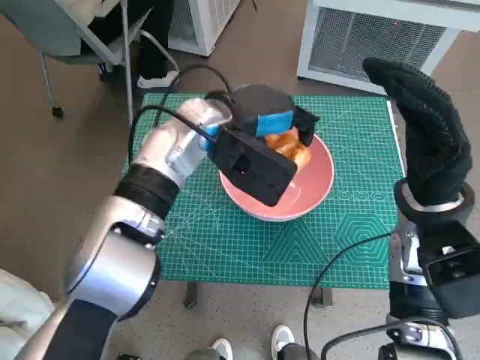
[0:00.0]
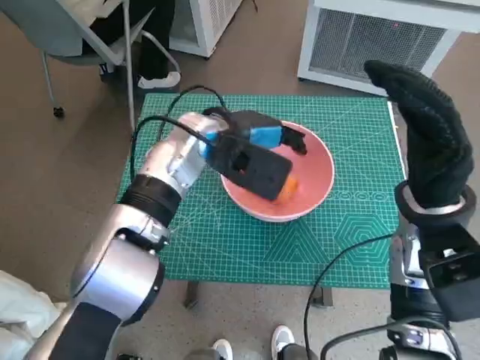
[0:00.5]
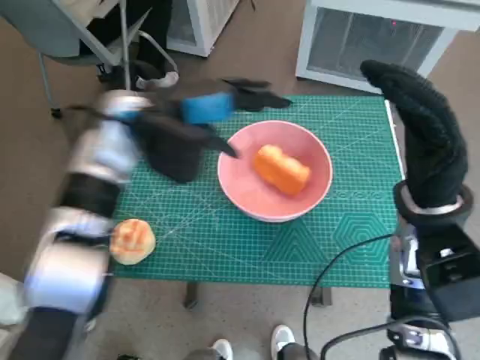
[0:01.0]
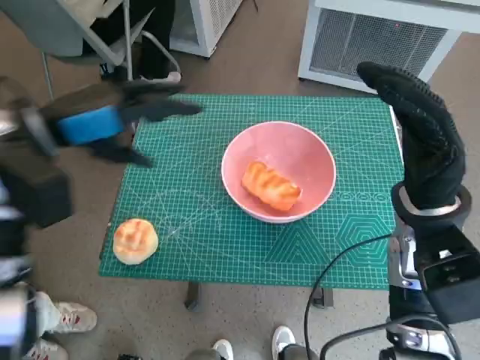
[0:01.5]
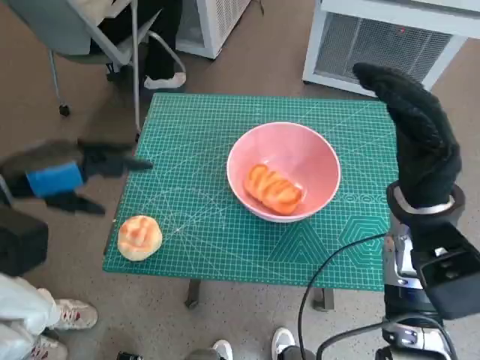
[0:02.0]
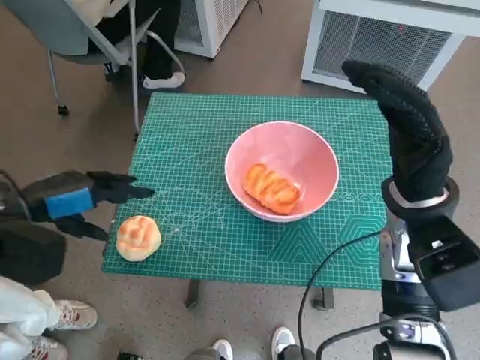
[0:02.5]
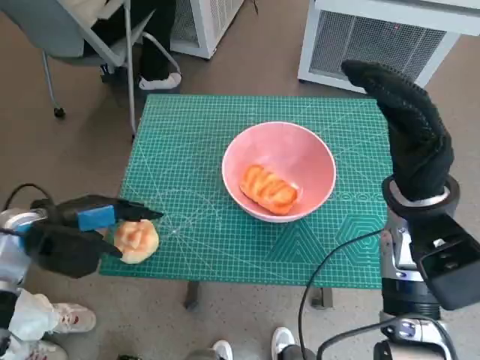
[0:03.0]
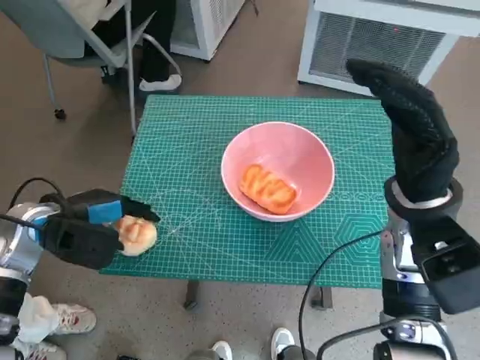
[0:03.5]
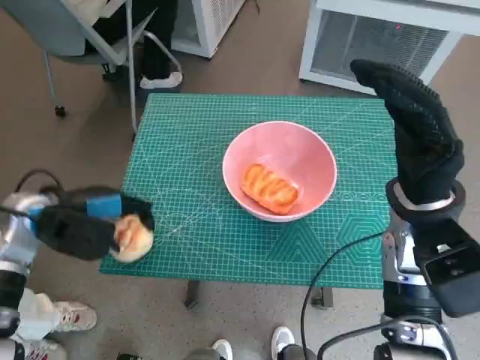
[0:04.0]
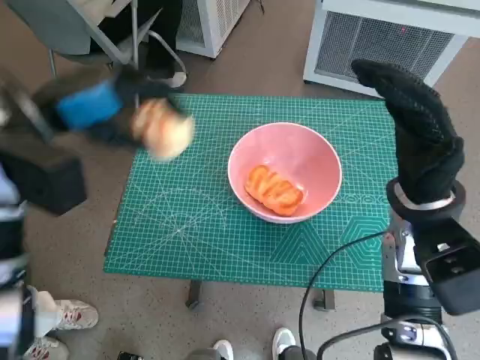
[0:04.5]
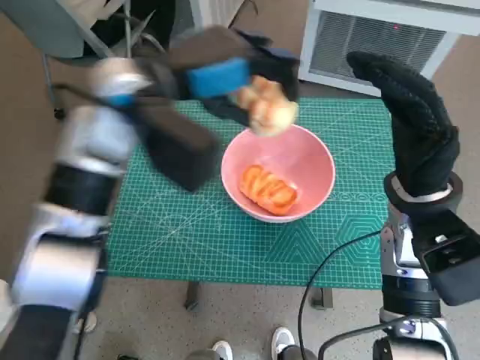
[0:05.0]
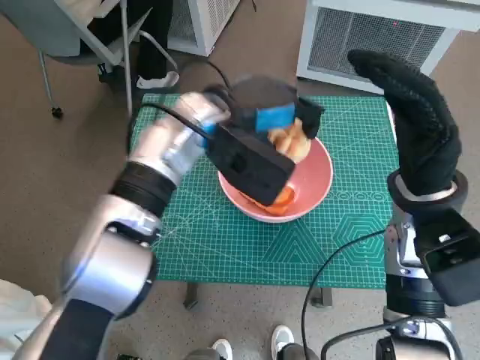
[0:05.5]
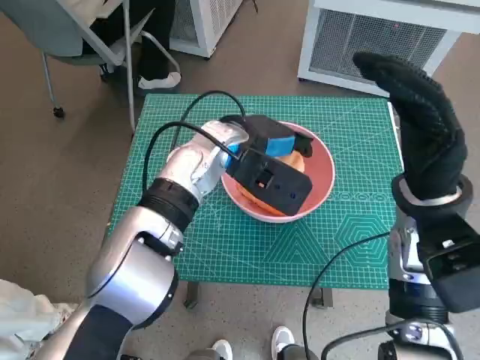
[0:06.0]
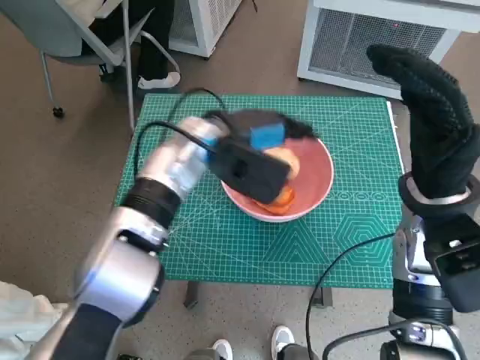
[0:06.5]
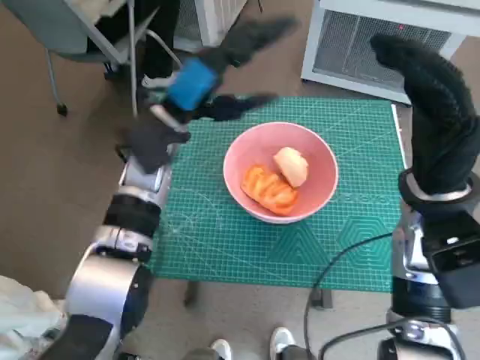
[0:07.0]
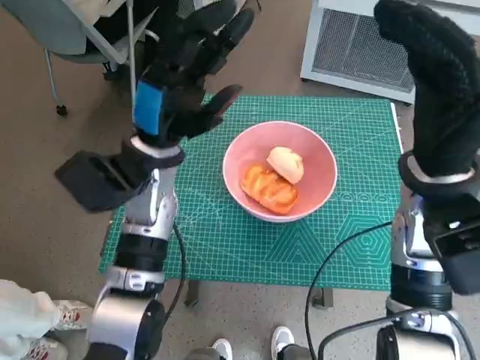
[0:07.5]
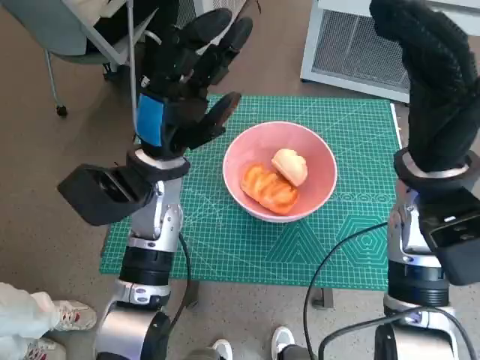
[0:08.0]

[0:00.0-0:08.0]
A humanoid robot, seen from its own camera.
Task of the whole recording: Push the bowl to the center of the table and put the bread into the bowl.
Step, 0:01.0 to 0:03.0: Grasp the round bread with left hand.
Step, 0:03.5 to 0:06.5: Place the round bread in pink bowl with left hand.
0:00.0 to 0:02.0: The left hand travels to the left and backward by some 25 cm.
0:02.0 to 0:04.0: The left hand is displaced downward by about 10 cm.
0:04.0 to 0:06.0: The left hand travels to the right by about 25 cm.
0:06.0 to 0:08.0: The left hand is displaced to the left by about 10 cm.

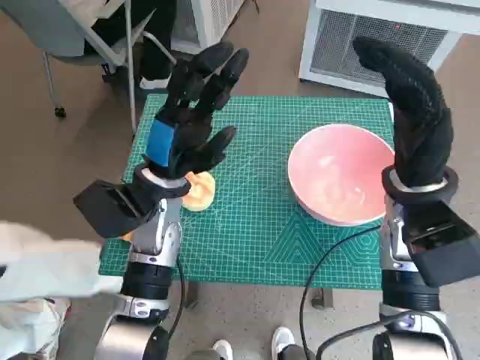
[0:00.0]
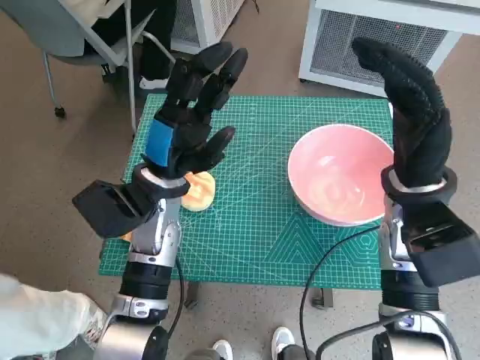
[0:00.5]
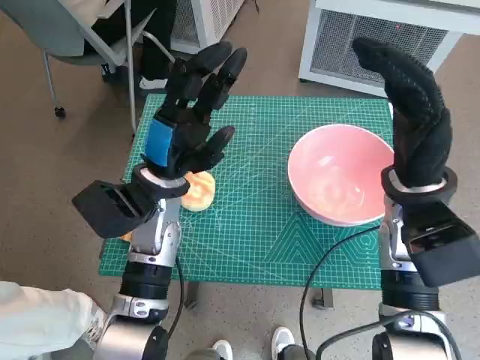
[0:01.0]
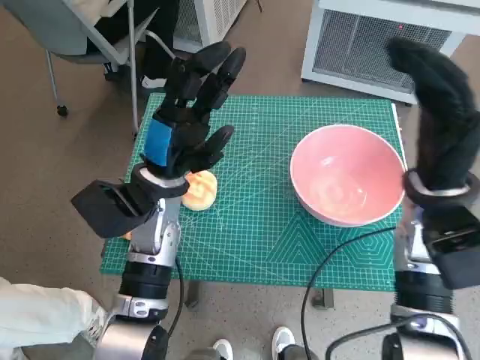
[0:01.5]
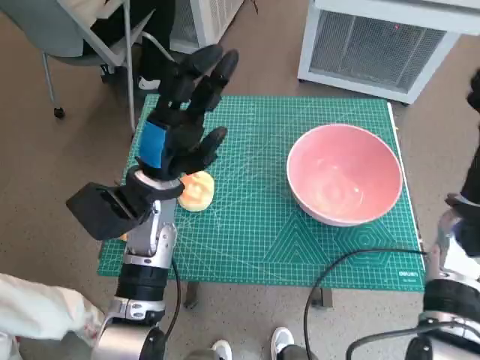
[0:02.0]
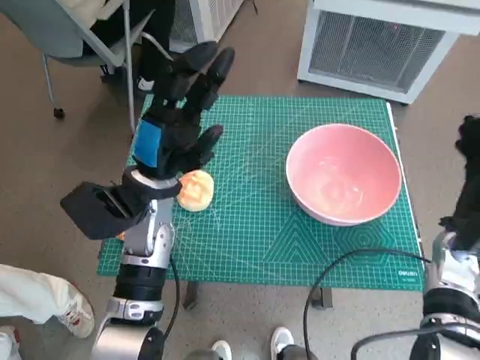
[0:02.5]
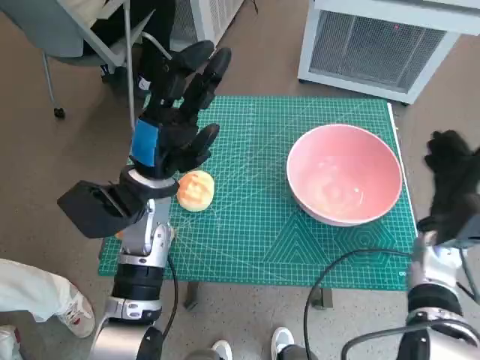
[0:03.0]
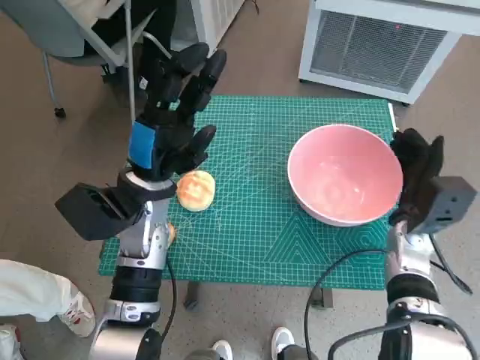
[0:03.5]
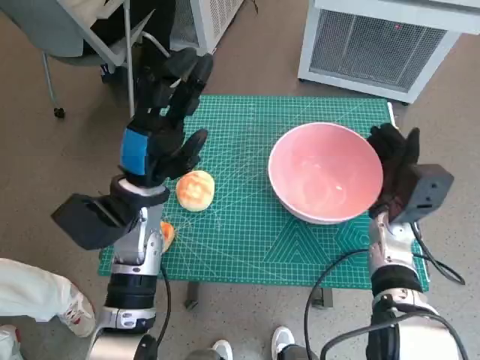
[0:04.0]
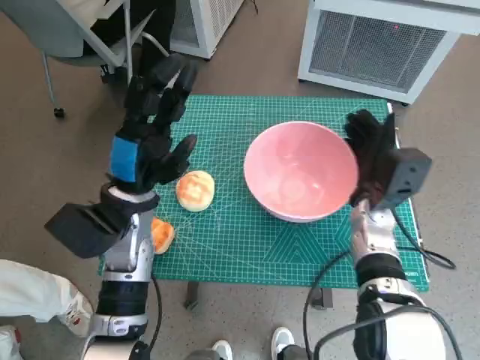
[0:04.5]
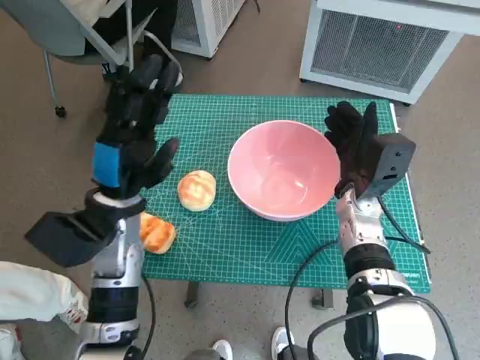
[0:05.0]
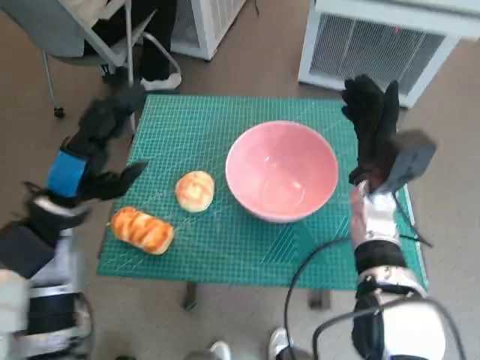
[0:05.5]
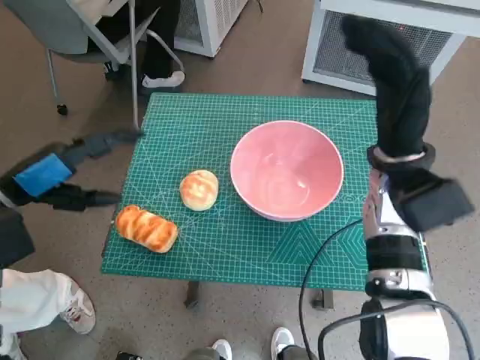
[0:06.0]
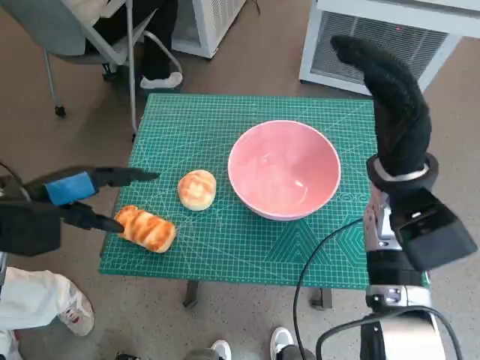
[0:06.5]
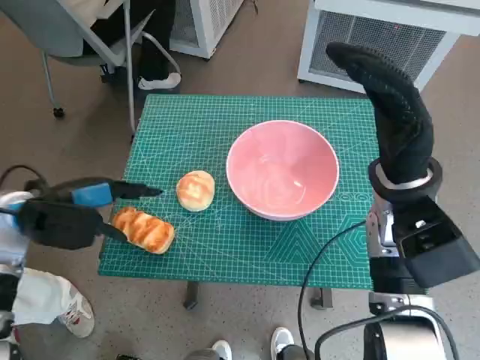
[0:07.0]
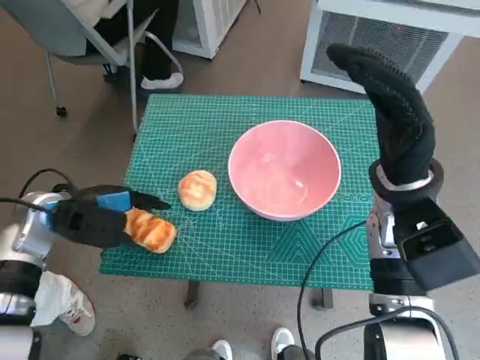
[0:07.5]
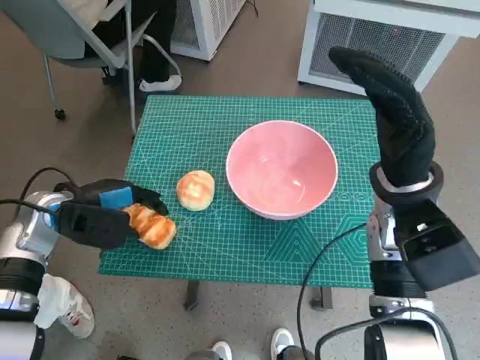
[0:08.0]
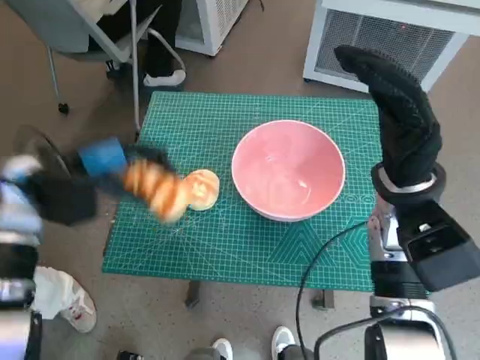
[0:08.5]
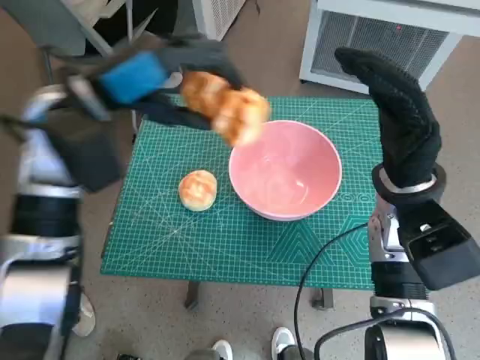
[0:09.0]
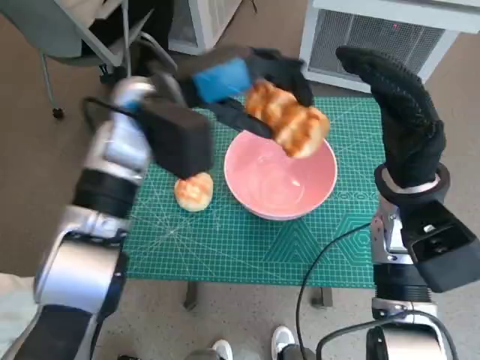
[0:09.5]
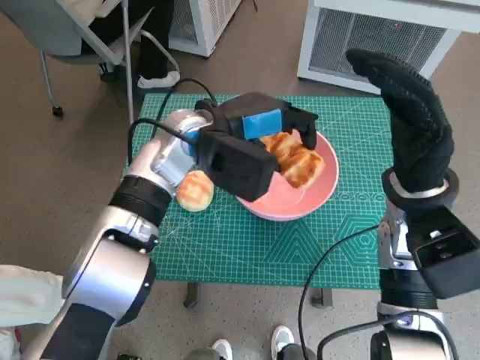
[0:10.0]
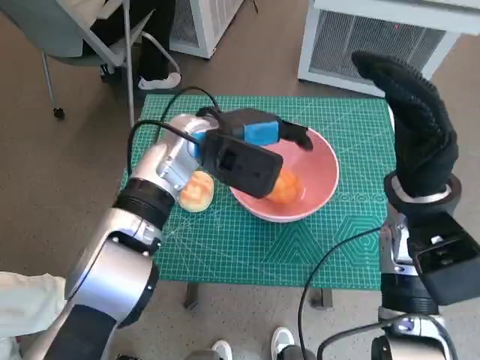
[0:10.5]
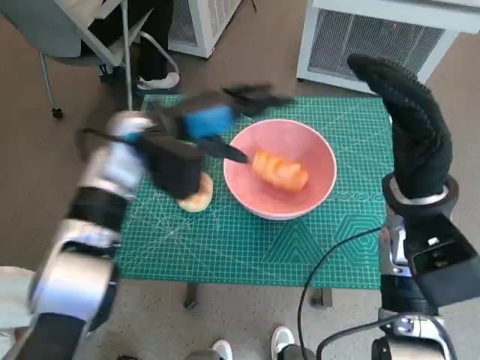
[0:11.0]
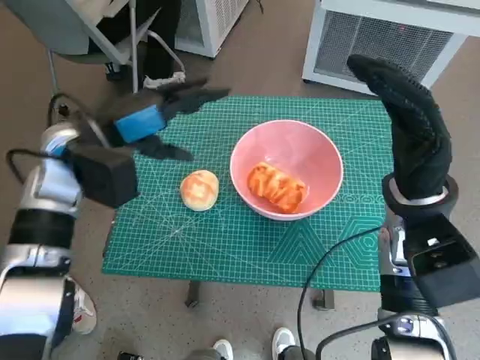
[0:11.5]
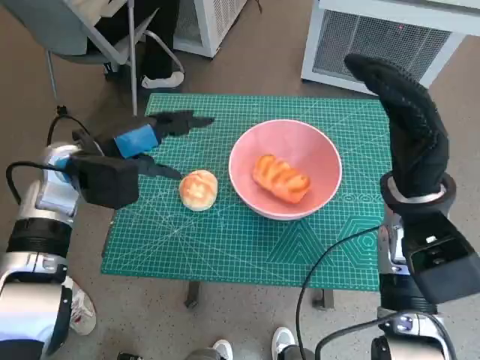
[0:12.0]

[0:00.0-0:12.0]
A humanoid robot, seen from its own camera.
Task of the whole recording: Push the bowl to the center of the table and put the bread into the bowl.
Step, 0:00.0 to 0:05.0: Move the pink bowl to the center of table with right hand.
Step, 0:05.5 to 0:08.0: Grasp the long bread with left hand.
Step, 0:08.5 to 0:10.5: Place the long bread in pink bowl with left hand.
0:02.0 to 0:04.0: The right hand travels downward and to the left by approximately 10 cm.
0:04.0 to 0:06.0: The right hand shifts some 10 cm upward, while the left hand travels to the left by roughly 15 cm.
0:06.0 to 0:08.0: The left hand shifts roughly 5 cm downward.
0:08.0 to 0:10.0: The left hand moves to the right and upward, some 20 cm.
0:10.0 to 0:12.0: The left hand moves to the left, about 15 cm.

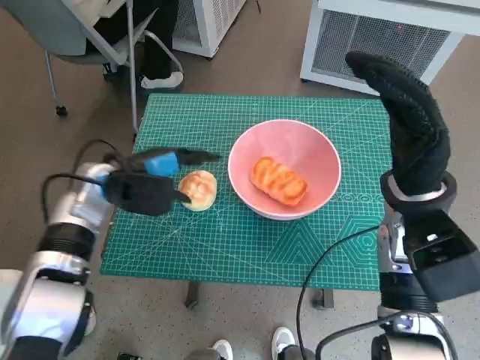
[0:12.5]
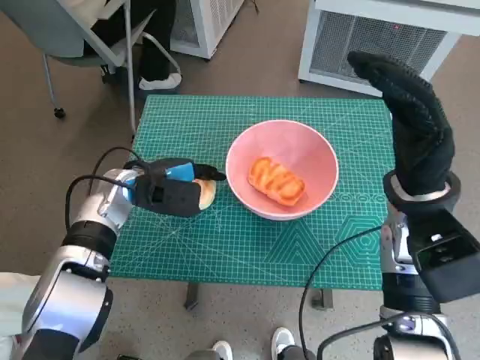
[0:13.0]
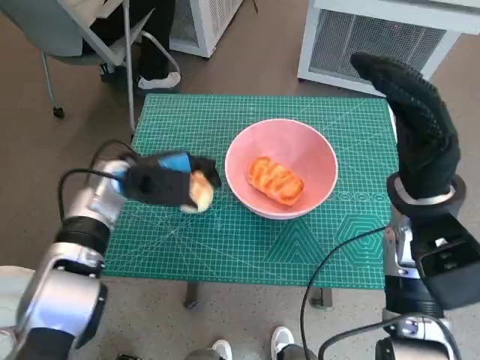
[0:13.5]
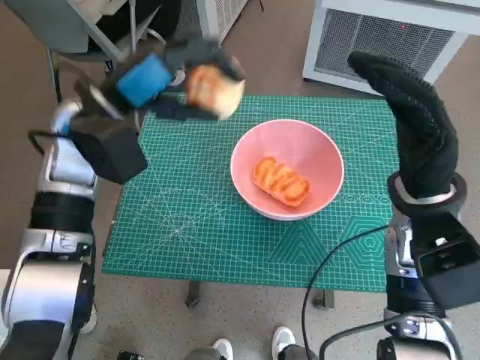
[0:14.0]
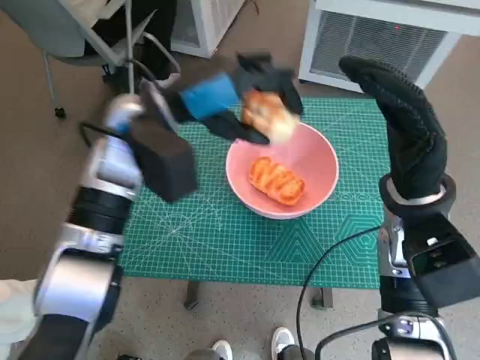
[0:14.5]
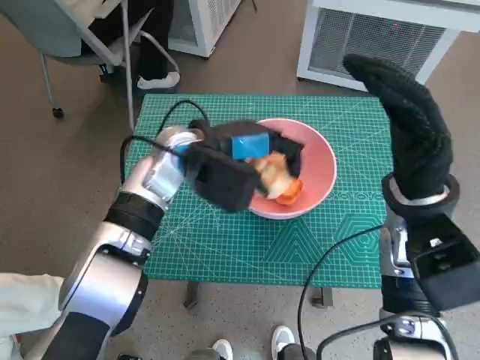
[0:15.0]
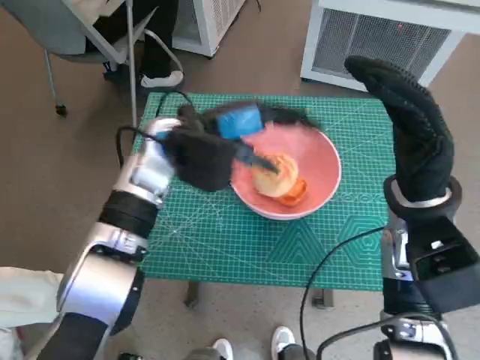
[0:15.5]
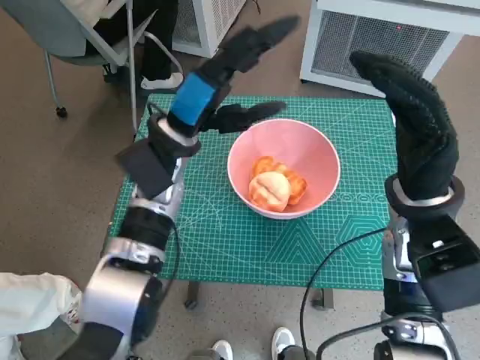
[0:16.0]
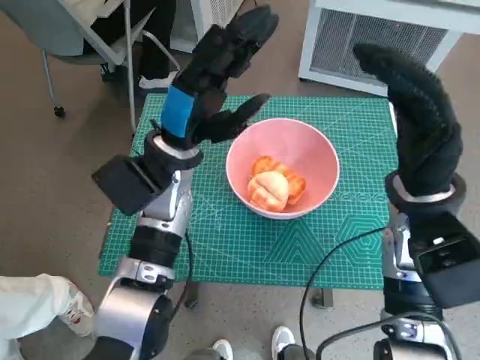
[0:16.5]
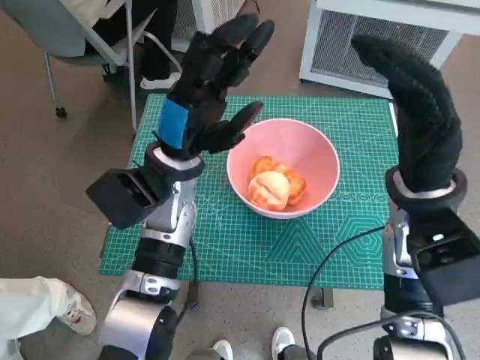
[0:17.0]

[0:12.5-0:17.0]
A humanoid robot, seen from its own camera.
Task of the whole recording: Push the bowl to the center of the table and put the bread into the bowl.
Step, 0:13.5 to 0:15.5: Place the round bread in pink bowl with left hand.
0:12.5 to 0:14.5: The left hand moves upward and to the right, some 15 cm.
0:14.5 to 0:17.0: The left hand travels downward by roughly 5 cm.

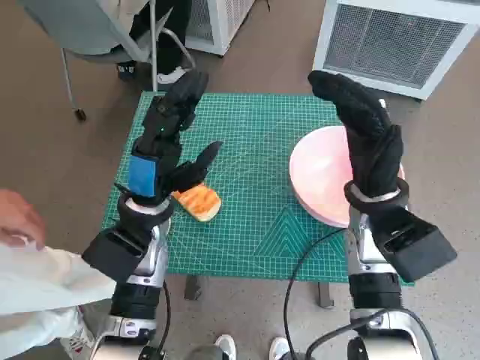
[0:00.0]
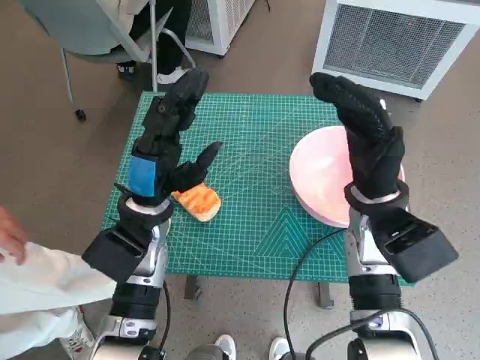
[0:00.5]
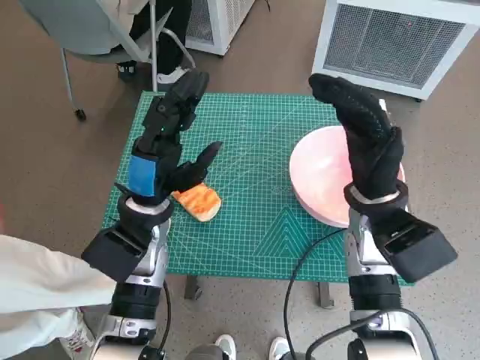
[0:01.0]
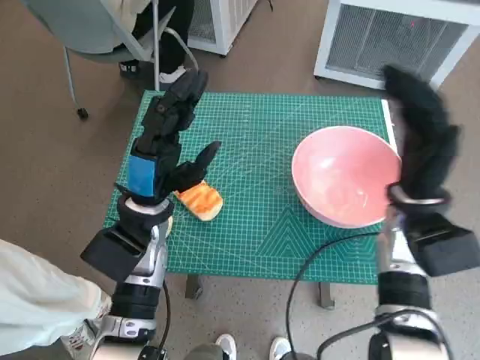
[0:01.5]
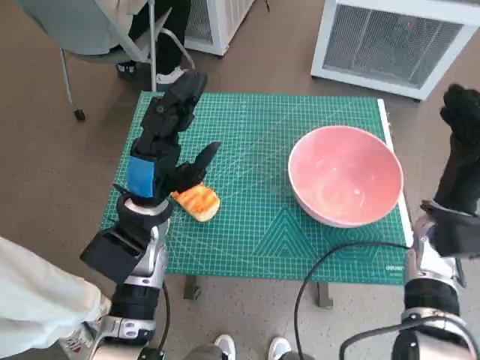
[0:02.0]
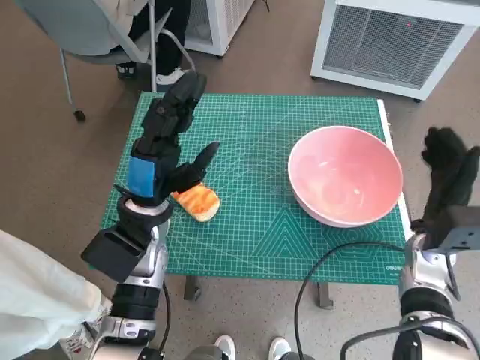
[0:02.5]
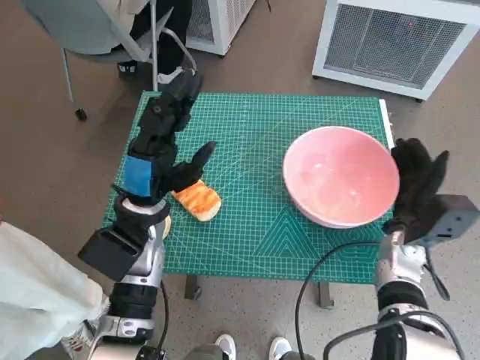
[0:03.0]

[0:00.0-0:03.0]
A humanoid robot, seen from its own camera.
Task of the whole recording: Push the bowl to the center of the table and put the bread into the bowl.
0:01.5 to 0:03.0: The right hand moves downward, about 10 cm.
